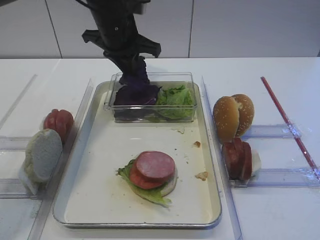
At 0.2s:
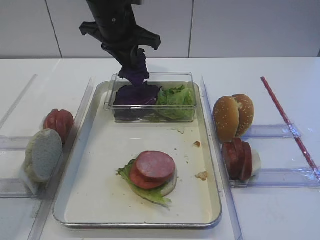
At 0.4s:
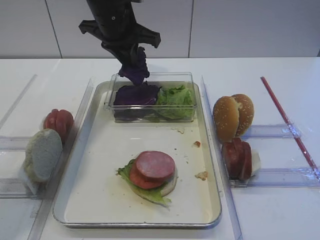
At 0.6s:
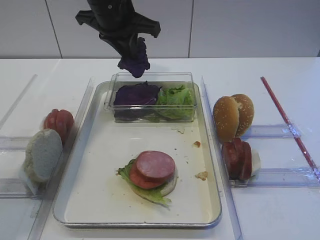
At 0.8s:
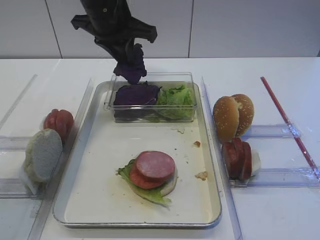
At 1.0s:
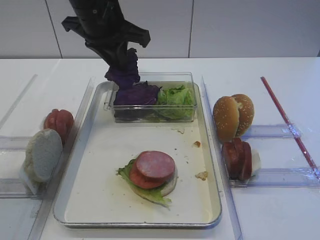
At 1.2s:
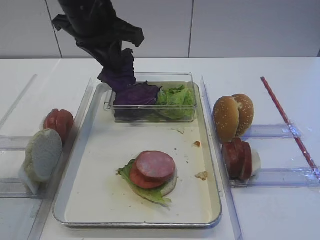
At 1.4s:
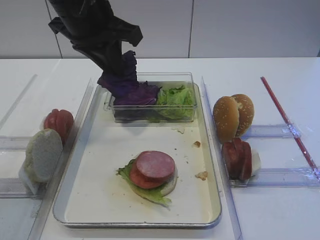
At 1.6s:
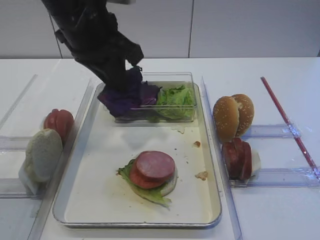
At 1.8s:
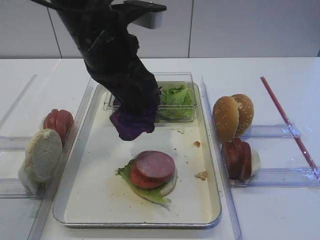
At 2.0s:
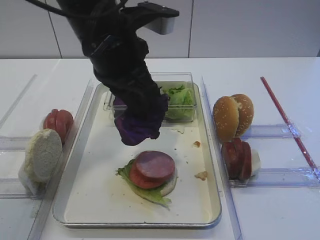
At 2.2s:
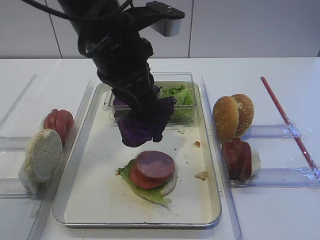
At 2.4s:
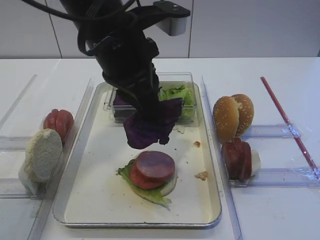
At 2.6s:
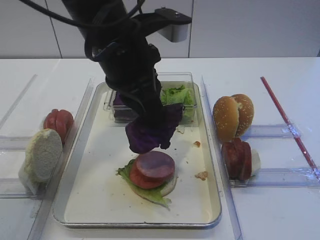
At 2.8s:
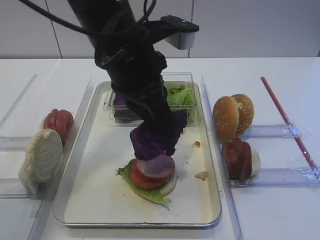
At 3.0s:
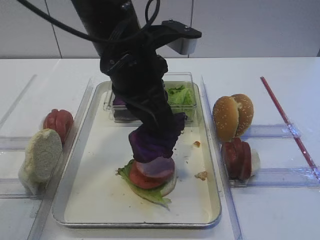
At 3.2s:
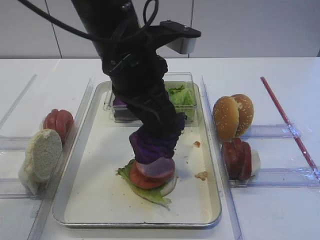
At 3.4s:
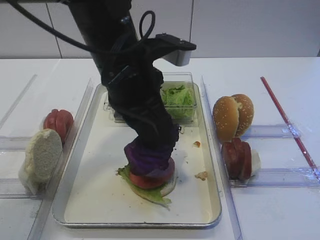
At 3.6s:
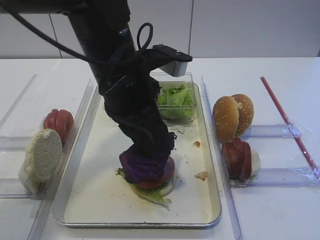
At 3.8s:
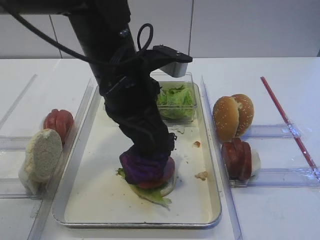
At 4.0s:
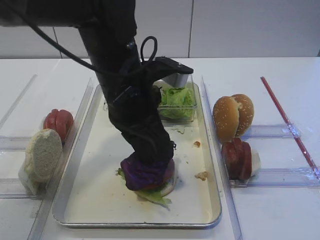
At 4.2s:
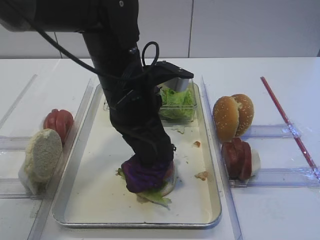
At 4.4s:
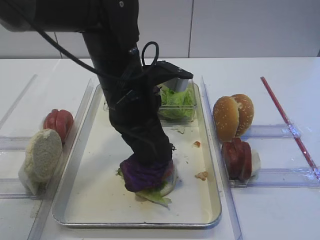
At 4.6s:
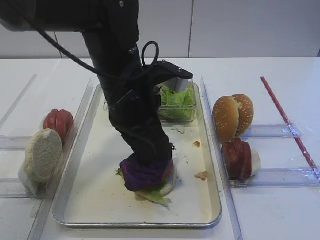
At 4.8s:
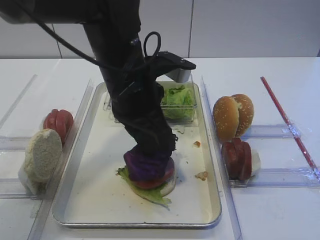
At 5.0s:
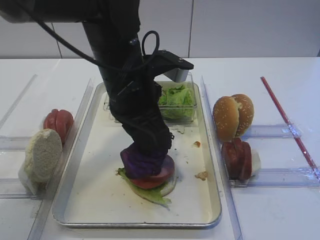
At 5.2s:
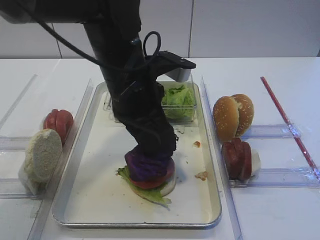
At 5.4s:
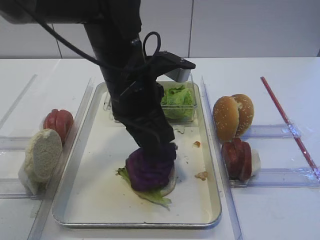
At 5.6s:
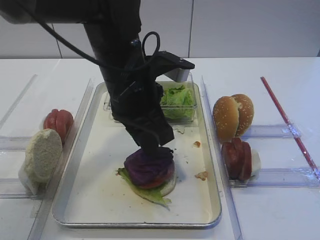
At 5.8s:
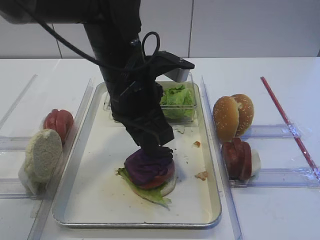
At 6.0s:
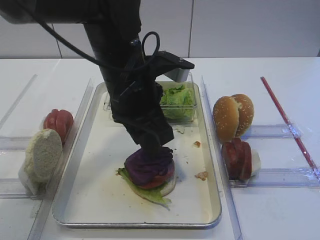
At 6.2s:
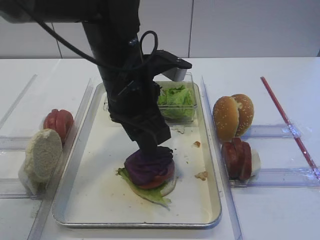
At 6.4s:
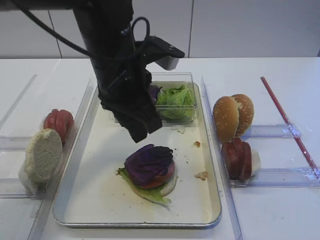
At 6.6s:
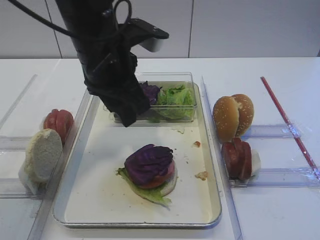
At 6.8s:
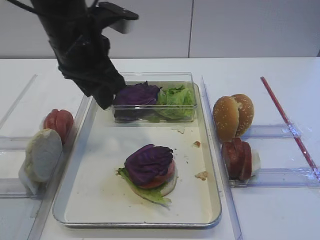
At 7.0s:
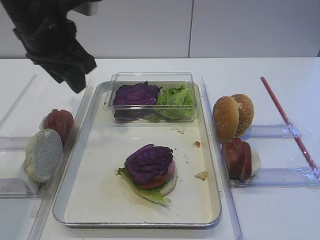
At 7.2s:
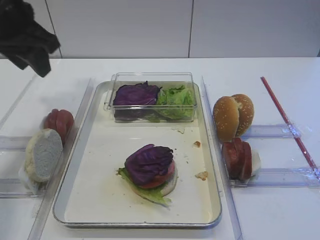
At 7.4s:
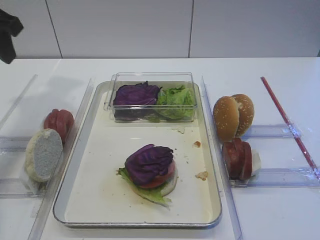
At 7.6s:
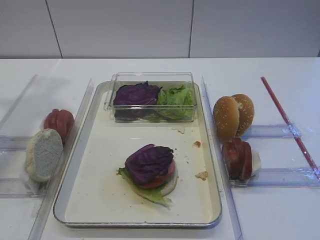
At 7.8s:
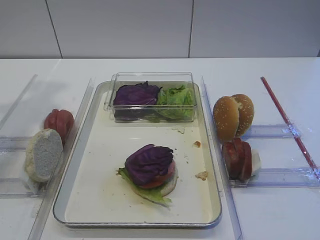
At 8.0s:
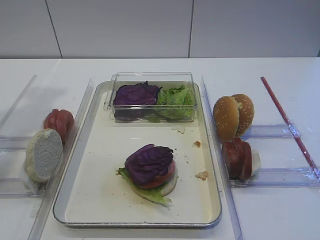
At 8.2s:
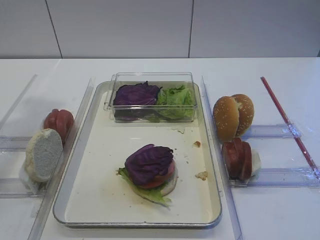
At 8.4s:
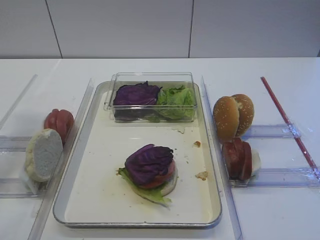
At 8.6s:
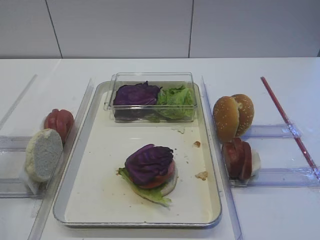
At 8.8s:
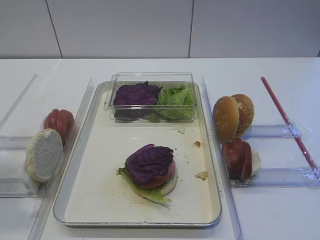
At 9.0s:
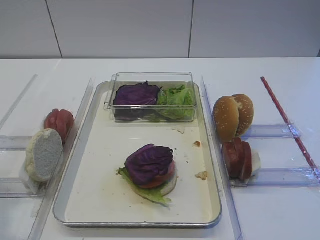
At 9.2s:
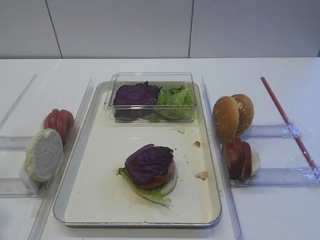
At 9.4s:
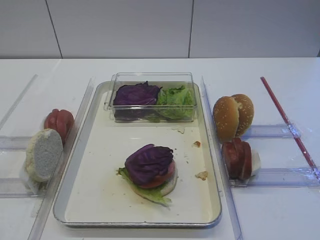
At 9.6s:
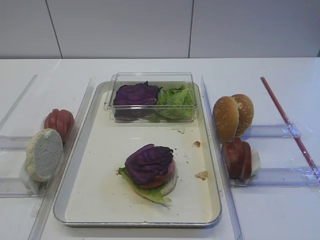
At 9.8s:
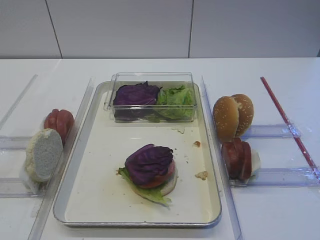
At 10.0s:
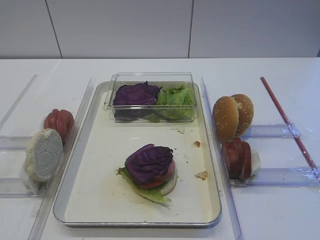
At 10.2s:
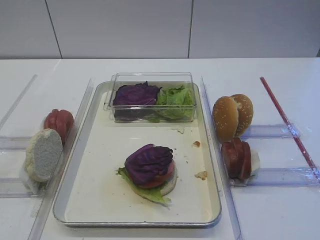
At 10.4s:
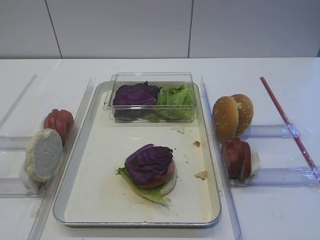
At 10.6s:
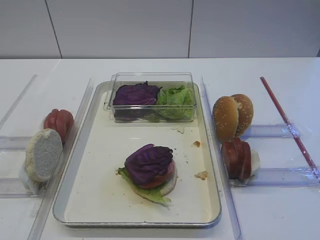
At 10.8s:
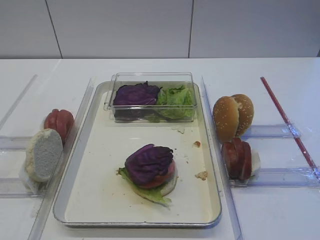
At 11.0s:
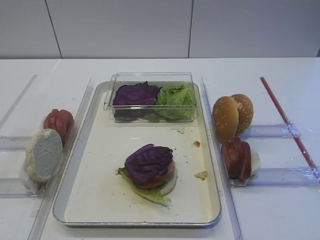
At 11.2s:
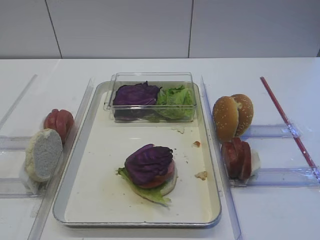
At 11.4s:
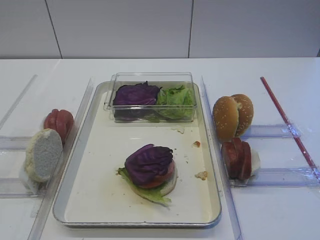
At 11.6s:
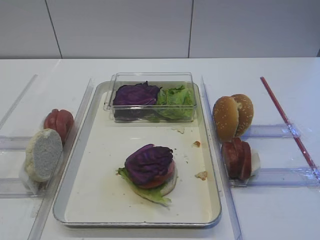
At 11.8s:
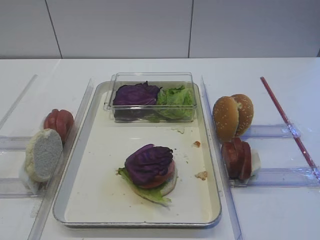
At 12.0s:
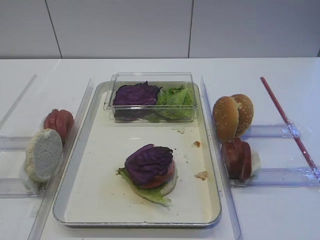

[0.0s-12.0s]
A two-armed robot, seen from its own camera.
Step, 1.4s to 6.4s: Place the purple cabbage on the cutlet with the left gripper.
0.0s to 1.6s: The left gripper heads backward and upward, covering about 15 cm.
1.6s to 3.0s: The left gripper is displaced to the right by some 5 cm.
3.0s to 4.4s: The left gripper shifts about 5 cm downward.
4.4s to 6.0s: Both grippers stay about where they are.
6.0s to 7.6s: The left gripper goes approximately 25 cm to the left and upward.
7.6s to 9.0s: The left gripper travels backward by roughly 25 cm.

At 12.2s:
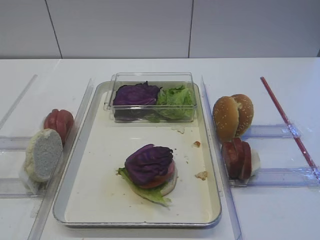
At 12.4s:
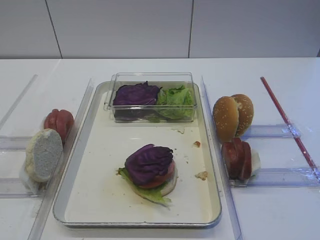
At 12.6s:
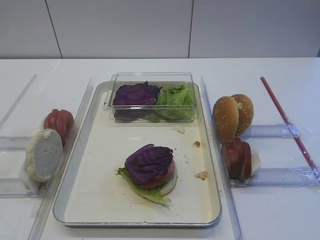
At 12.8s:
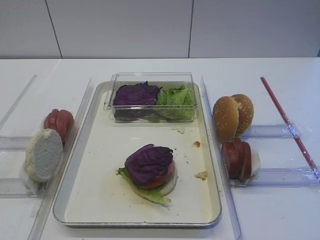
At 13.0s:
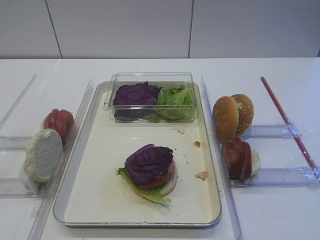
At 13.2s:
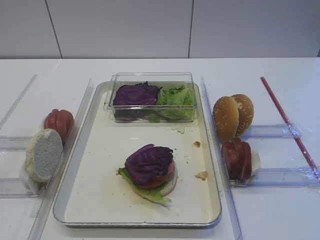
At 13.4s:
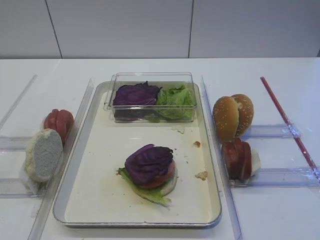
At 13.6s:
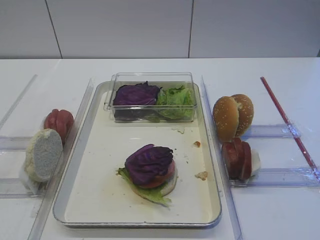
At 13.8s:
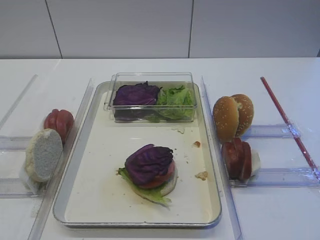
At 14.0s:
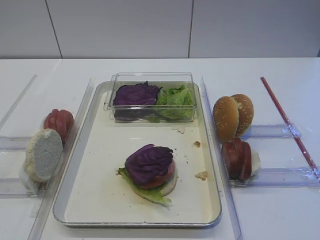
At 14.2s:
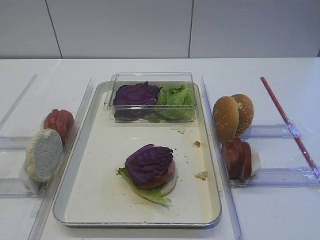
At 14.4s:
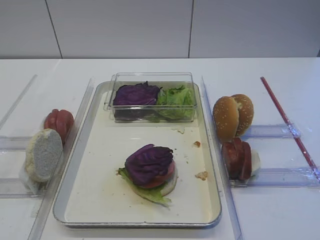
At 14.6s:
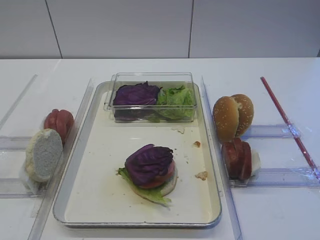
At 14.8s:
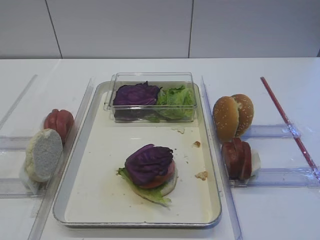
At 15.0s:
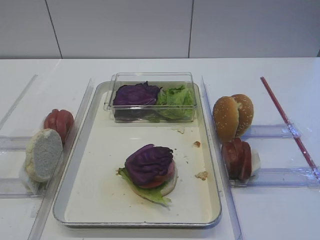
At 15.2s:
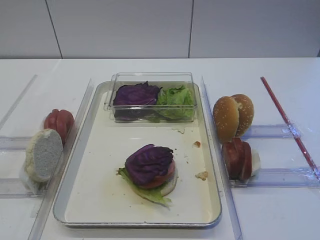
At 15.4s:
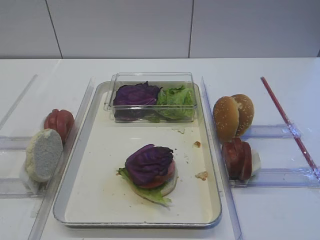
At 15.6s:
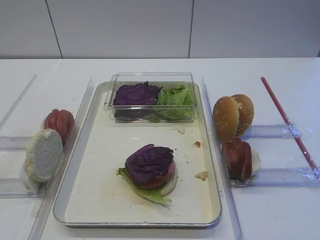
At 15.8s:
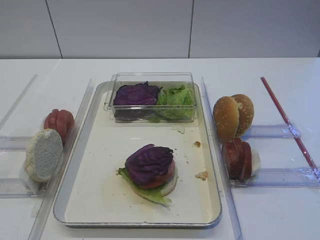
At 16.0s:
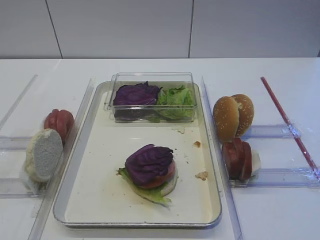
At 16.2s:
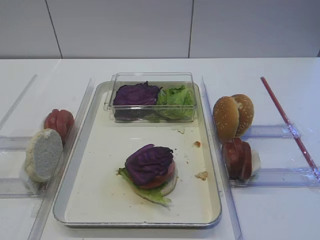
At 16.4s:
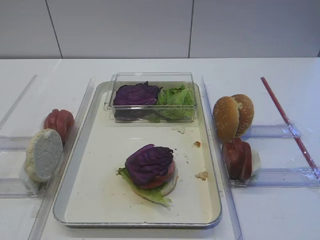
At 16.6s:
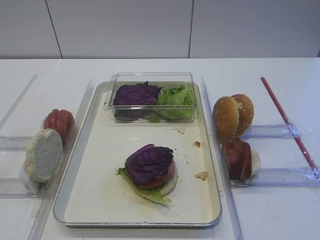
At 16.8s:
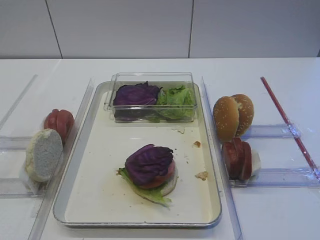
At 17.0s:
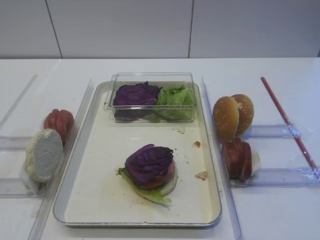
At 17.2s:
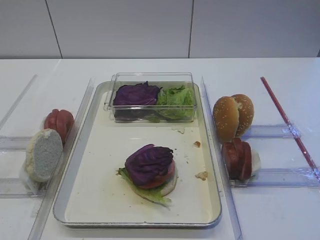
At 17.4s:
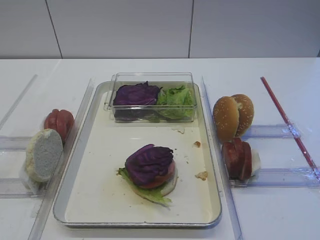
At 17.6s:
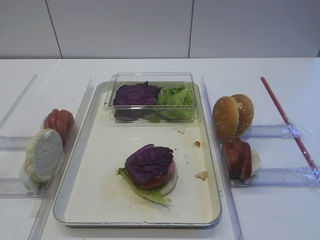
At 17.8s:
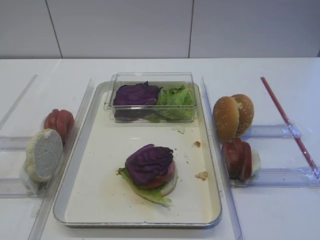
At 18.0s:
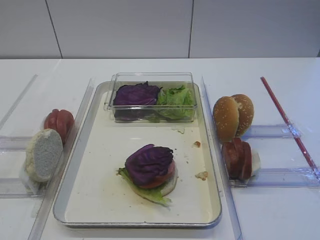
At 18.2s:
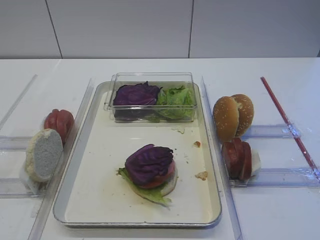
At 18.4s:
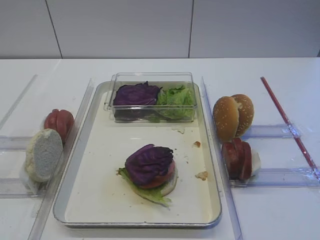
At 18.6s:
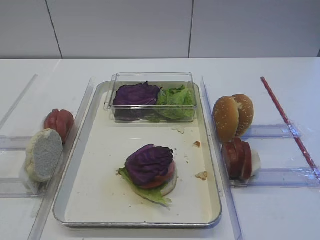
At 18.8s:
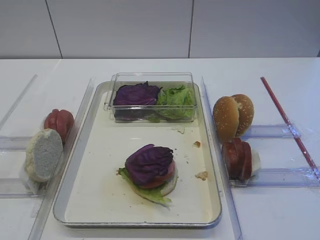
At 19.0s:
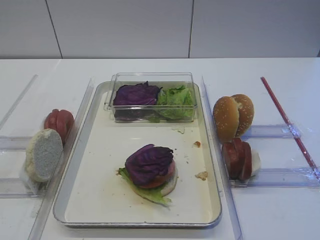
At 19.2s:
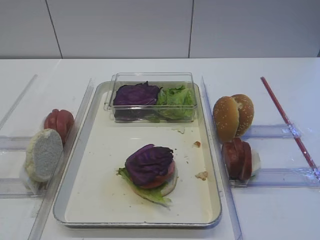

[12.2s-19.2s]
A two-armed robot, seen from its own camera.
12.2s to 15.0s: Both grippers stay put.
17.8s to 19.2s: Neither gripper changes place.

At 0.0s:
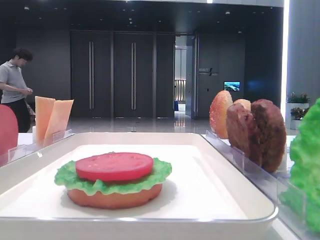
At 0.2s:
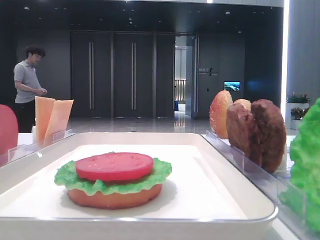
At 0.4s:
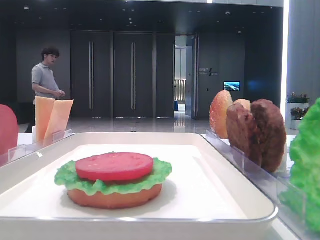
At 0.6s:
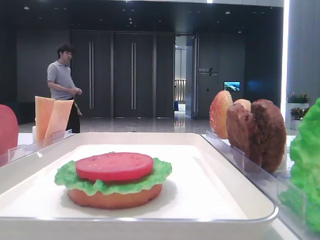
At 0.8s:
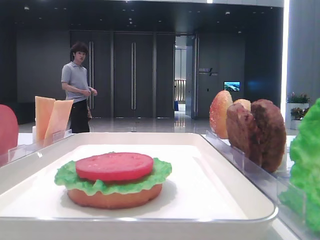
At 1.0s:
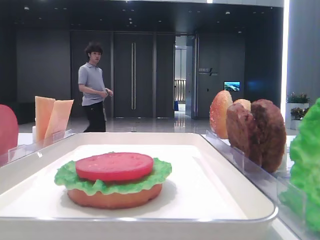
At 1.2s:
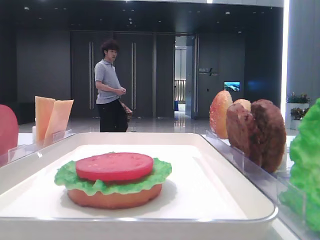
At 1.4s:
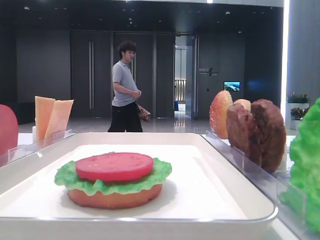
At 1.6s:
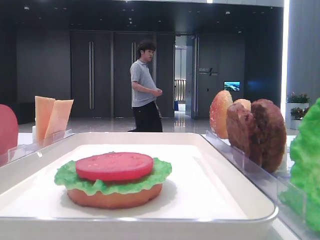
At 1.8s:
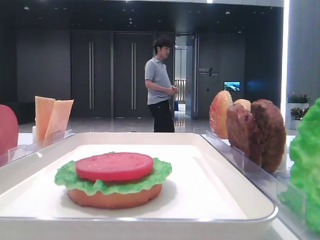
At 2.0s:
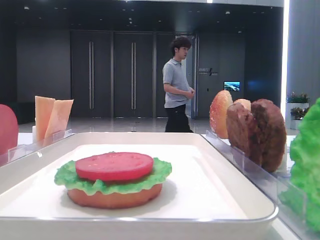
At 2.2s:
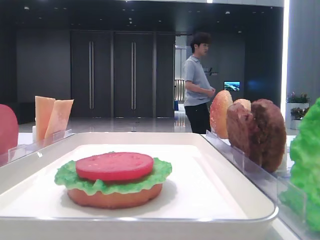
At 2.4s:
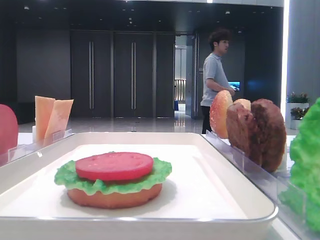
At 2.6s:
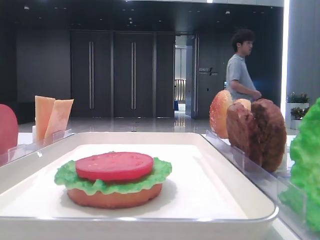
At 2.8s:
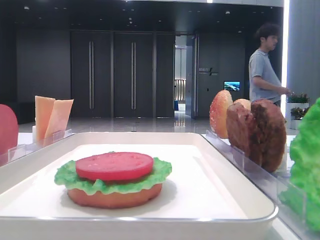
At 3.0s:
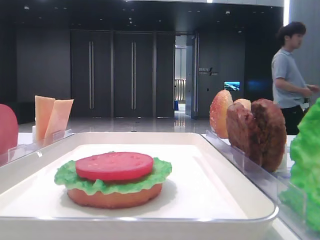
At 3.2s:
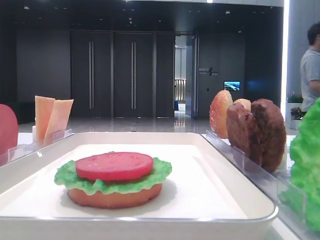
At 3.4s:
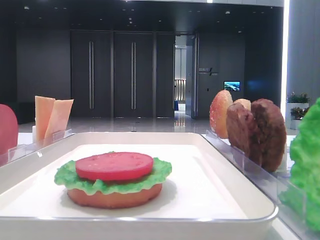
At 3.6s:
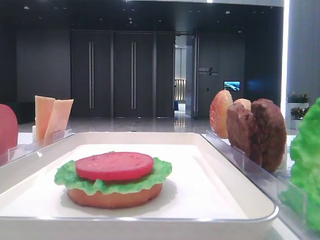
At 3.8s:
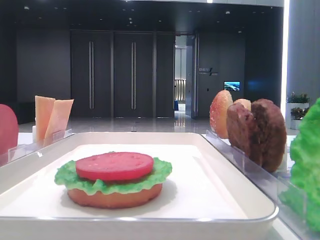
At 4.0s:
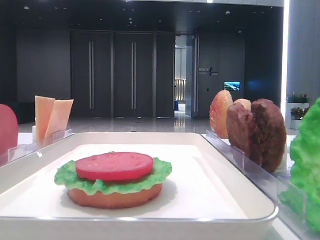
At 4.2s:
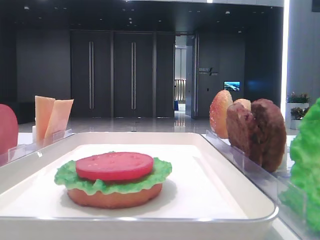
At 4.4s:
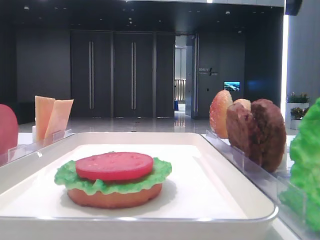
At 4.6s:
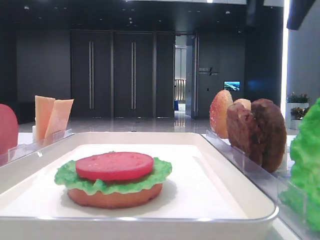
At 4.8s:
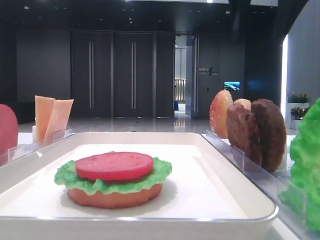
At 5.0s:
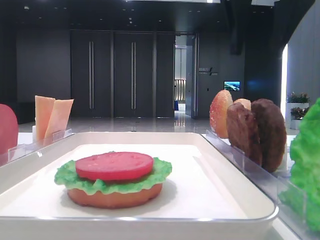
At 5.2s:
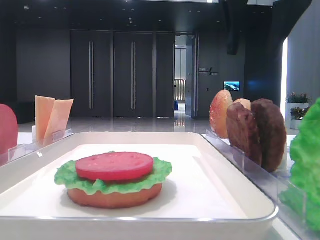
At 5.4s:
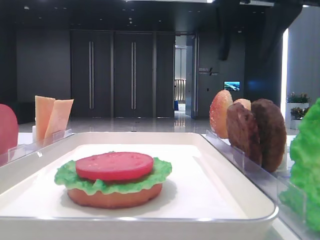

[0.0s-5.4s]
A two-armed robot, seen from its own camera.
1.4s to 2.8s: The right gripper travels forward by about 25 cm.
2.8s to 4.0s: The right gripper goes roughly 5 cm to the left.
4.0s to 5.4s: The right gripper goes approximately 10 cm to the left.
